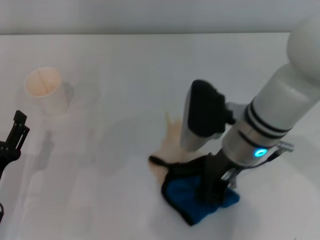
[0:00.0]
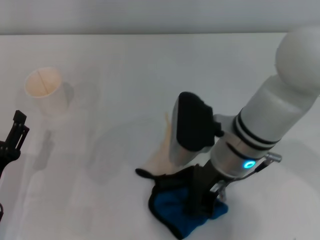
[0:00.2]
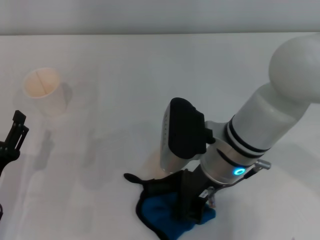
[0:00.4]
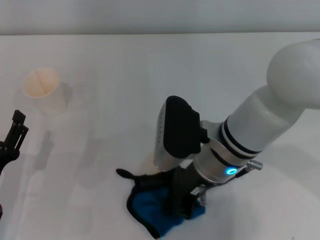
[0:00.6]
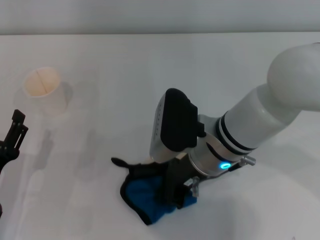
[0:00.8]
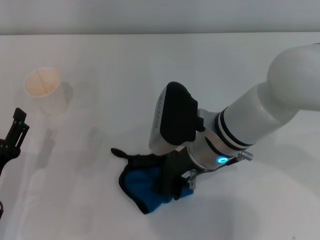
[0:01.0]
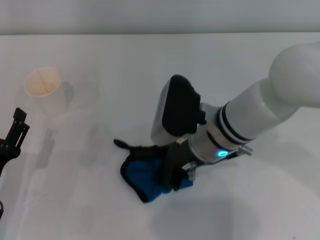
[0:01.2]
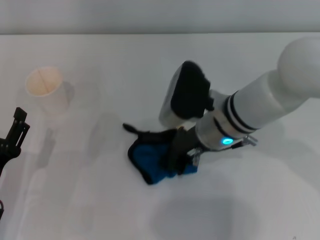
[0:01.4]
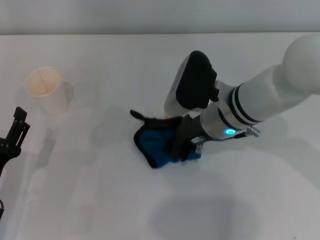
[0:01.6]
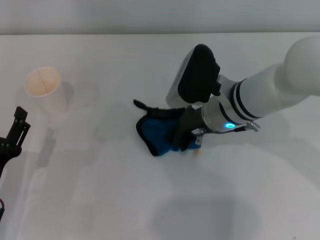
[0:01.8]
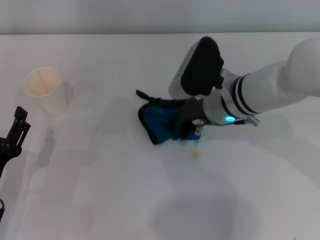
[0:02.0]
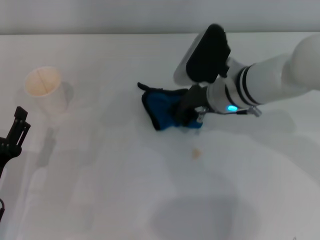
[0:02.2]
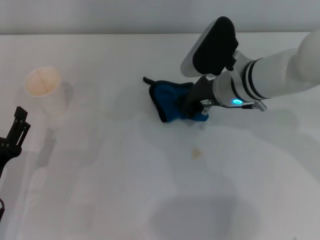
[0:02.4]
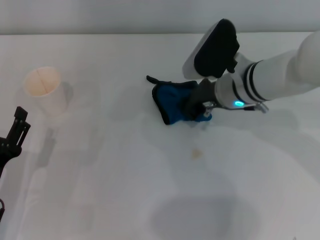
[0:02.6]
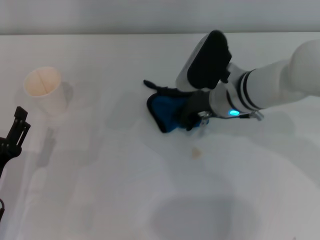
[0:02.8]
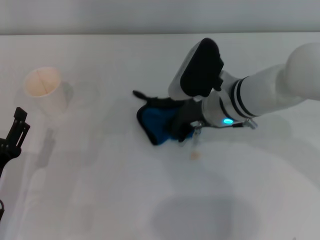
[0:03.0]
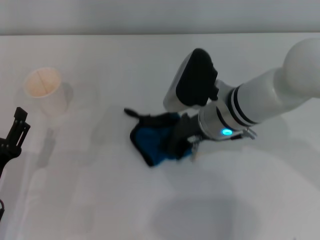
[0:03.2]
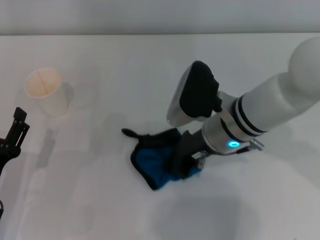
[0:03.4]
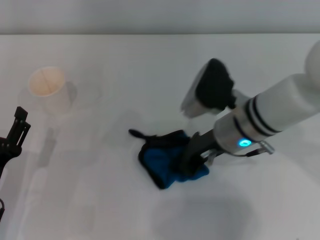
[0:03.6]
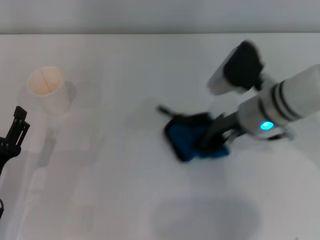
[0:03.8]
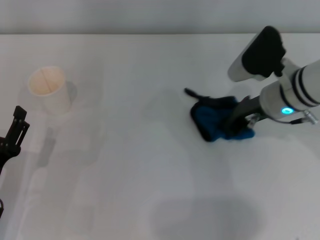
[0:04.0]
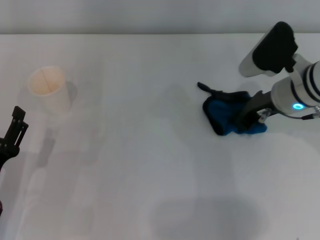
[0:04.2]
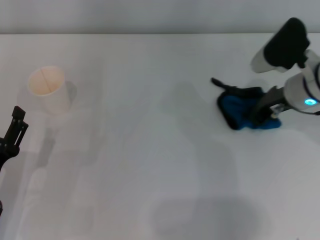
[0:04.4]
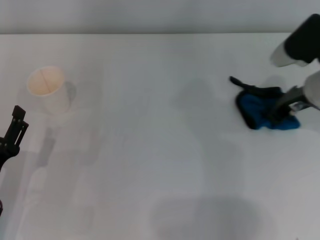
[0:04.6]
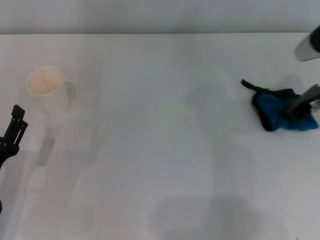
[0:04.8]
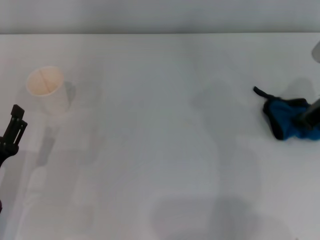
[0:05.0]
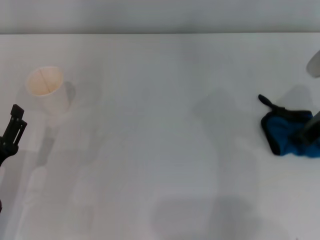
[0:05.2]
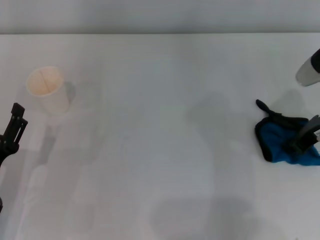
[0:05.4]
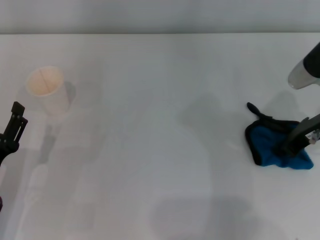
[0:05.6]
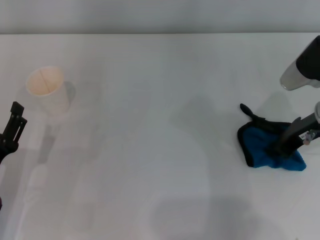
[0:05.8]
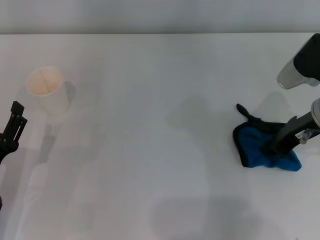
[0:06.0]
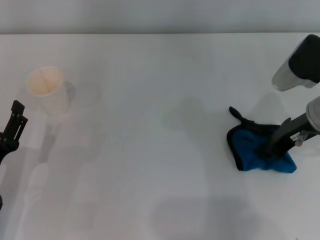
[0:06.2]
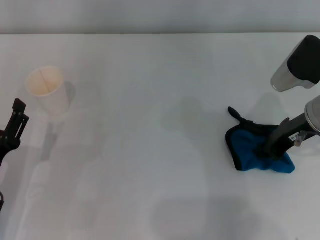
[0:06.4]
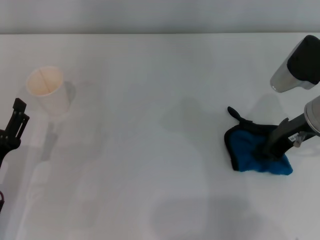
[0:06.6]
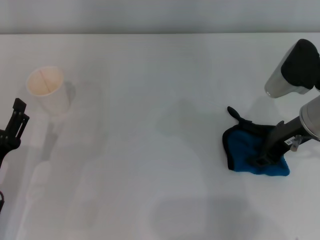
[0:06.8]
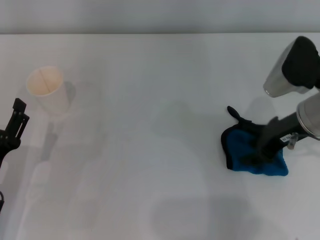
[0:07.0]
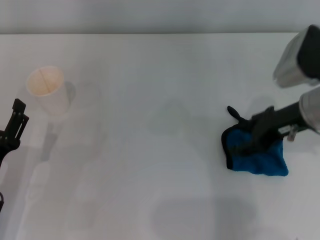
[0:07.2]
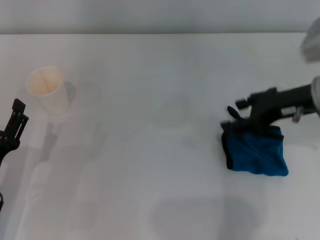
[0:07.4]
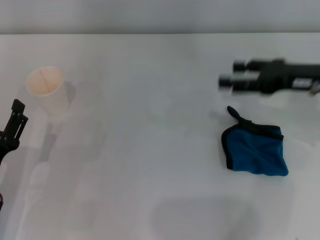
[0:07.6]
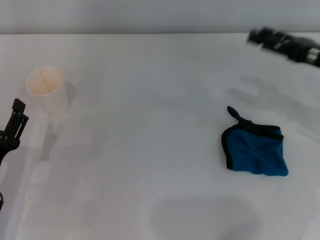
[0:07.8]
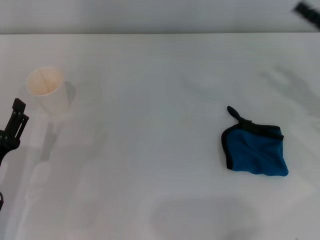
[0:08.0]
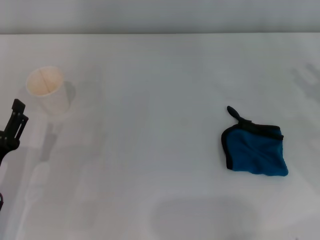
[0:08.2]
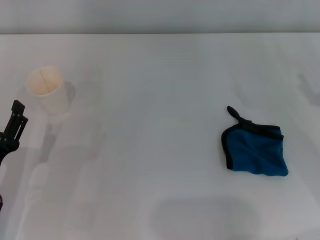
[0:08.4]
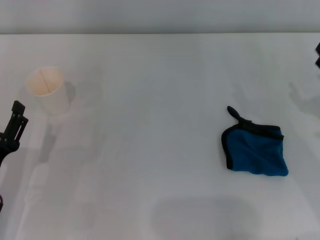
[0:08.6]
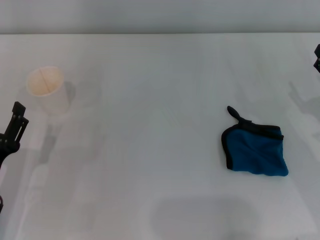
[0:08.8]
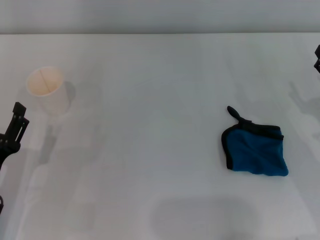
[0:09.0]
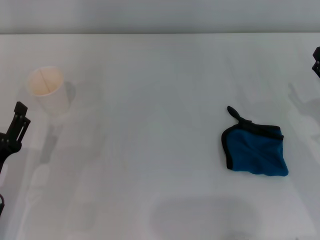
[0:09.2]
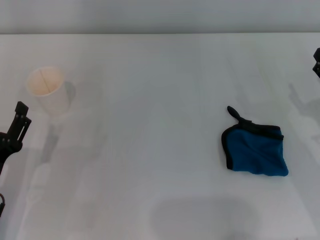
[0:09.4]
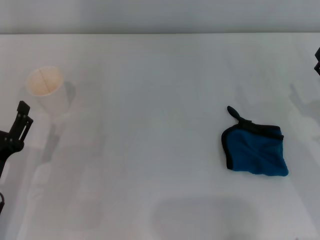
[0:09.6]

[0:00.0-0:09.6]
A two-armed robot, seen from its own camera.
Step, 0.0 to 6.0 s: Wipe the stains off the table with the right gripper.
Step, 6.2 to 7.0 s: Place the rag on the table with the right gripper.
1.6 to 3.2 s: The grippers make only small movements.
3.2 to 4.8 s: The right gripper shifts roughly 20 cm to the right.
4.8 to 6.4 s: The right gripper changes place by about 5 cm.
6.4 to 8.0 s: The right gripper travels to the right by approximately 10 cm, and opens its fingers.
8.0 to 9.6 s: The right gripper heads downward and backward, covering some 10 cm.

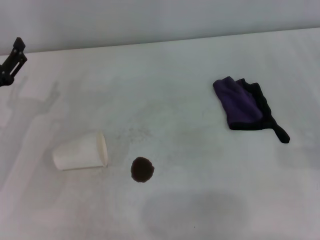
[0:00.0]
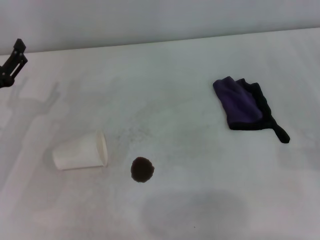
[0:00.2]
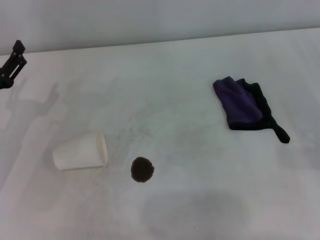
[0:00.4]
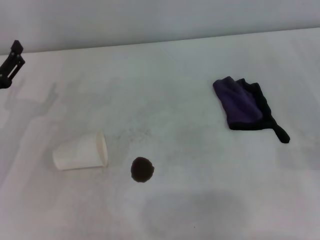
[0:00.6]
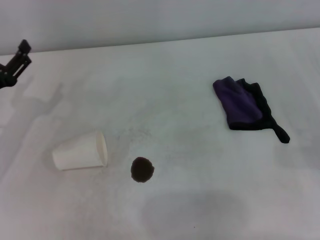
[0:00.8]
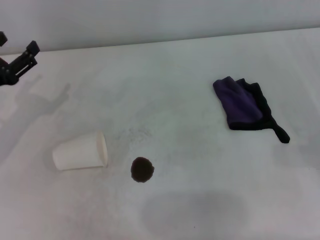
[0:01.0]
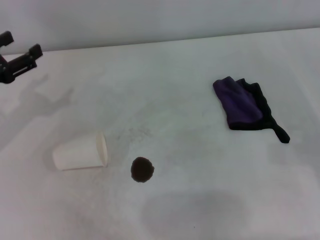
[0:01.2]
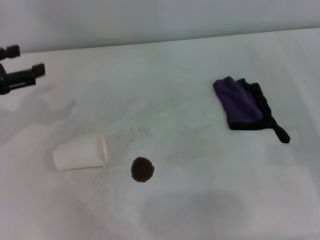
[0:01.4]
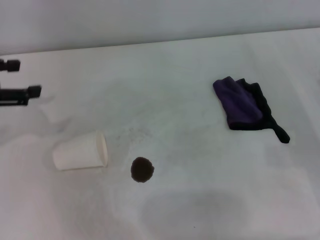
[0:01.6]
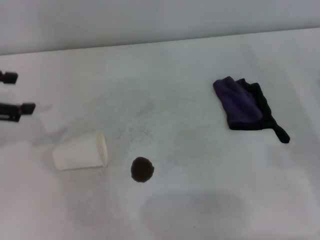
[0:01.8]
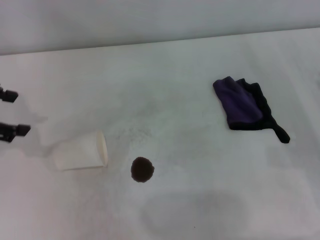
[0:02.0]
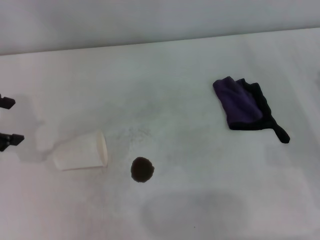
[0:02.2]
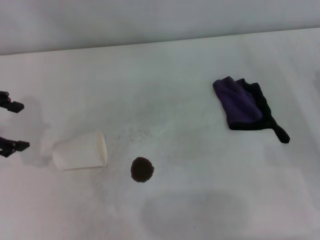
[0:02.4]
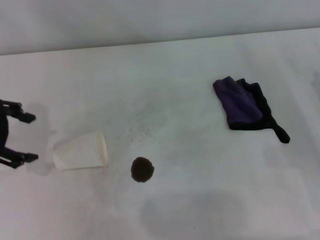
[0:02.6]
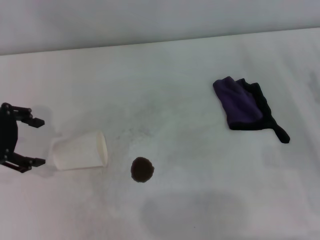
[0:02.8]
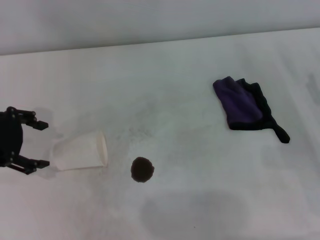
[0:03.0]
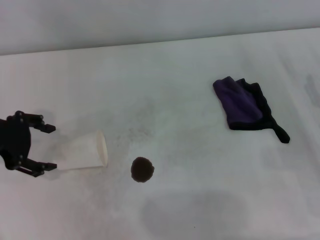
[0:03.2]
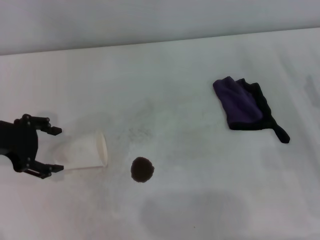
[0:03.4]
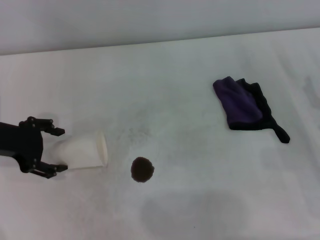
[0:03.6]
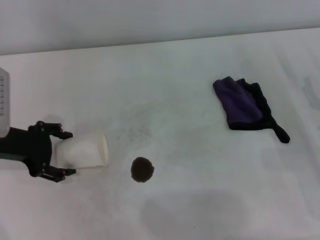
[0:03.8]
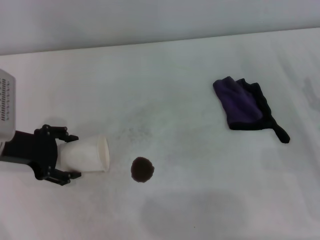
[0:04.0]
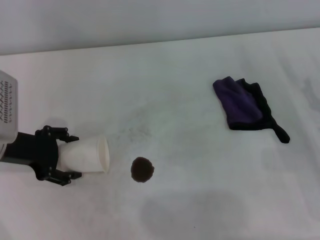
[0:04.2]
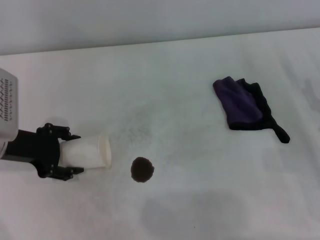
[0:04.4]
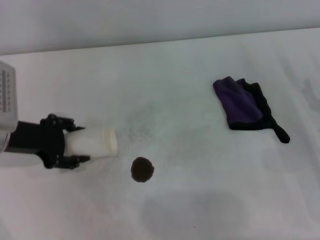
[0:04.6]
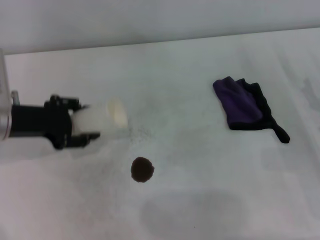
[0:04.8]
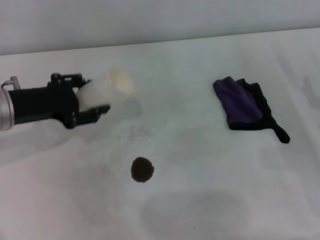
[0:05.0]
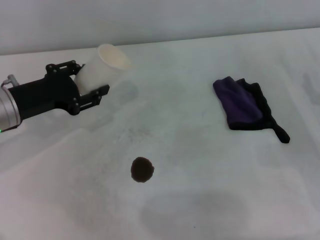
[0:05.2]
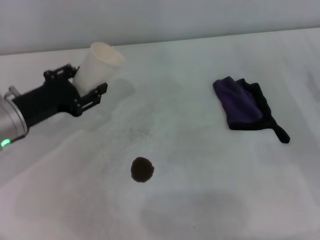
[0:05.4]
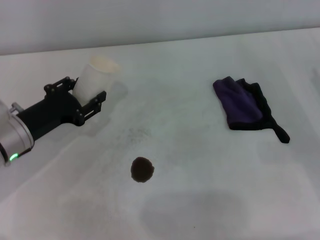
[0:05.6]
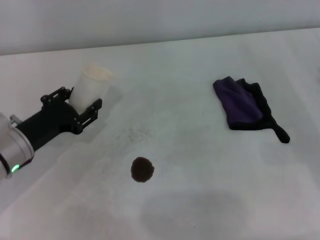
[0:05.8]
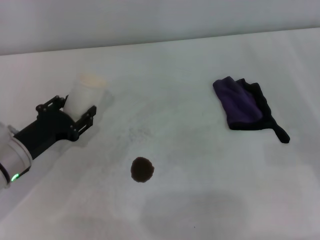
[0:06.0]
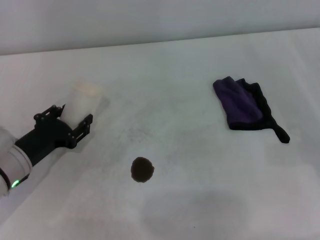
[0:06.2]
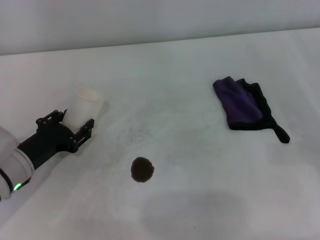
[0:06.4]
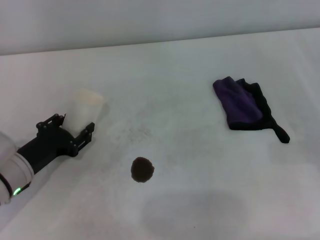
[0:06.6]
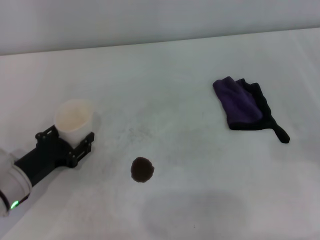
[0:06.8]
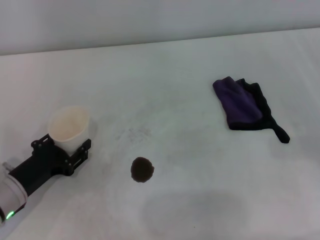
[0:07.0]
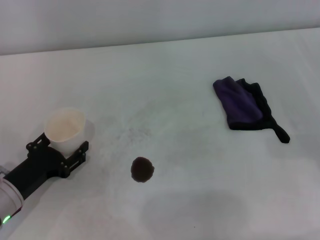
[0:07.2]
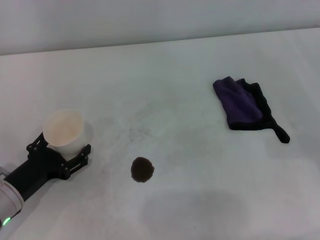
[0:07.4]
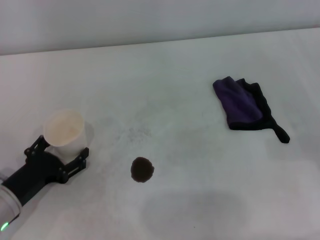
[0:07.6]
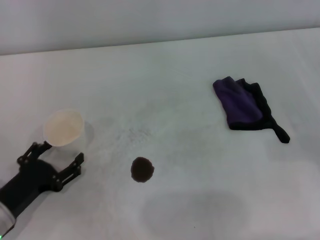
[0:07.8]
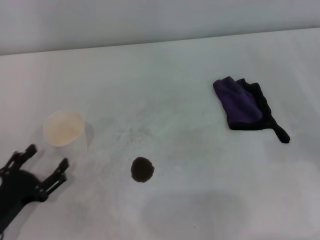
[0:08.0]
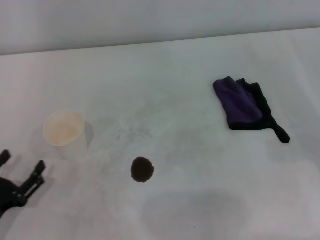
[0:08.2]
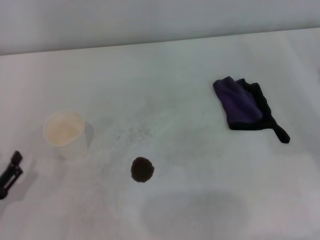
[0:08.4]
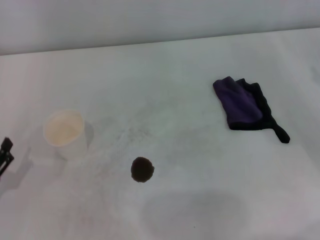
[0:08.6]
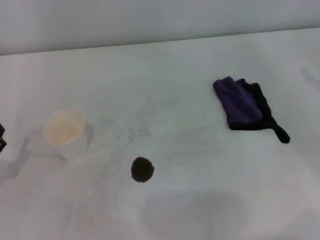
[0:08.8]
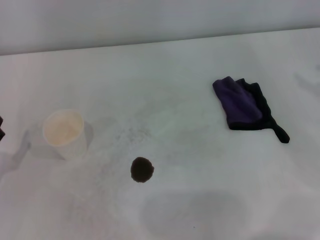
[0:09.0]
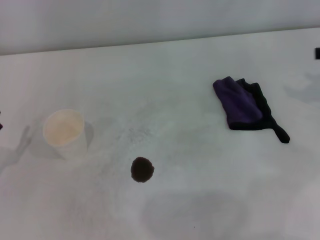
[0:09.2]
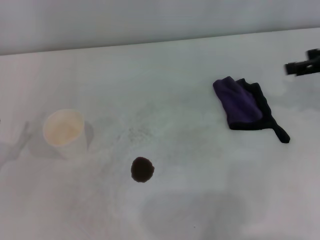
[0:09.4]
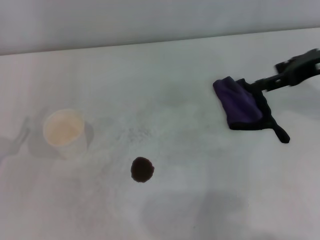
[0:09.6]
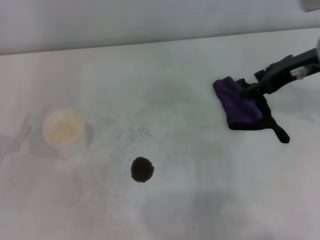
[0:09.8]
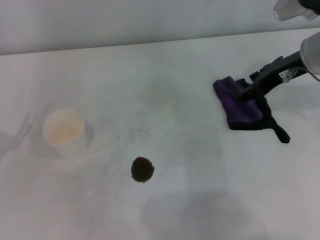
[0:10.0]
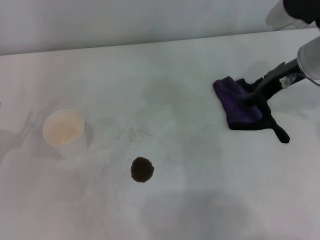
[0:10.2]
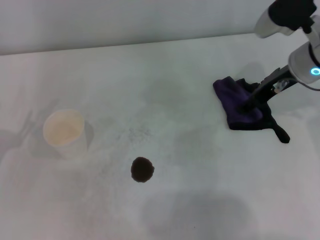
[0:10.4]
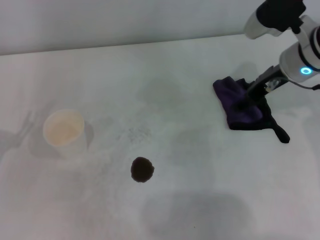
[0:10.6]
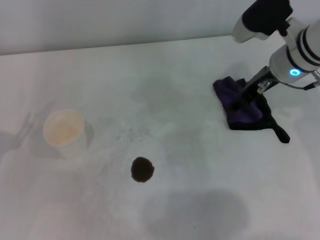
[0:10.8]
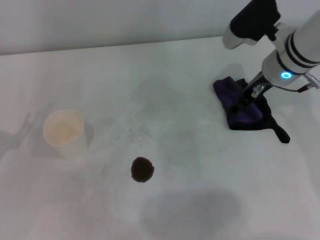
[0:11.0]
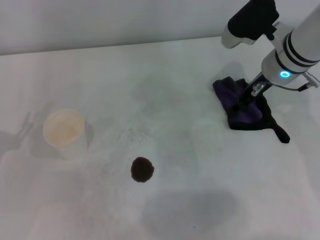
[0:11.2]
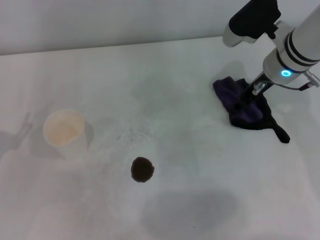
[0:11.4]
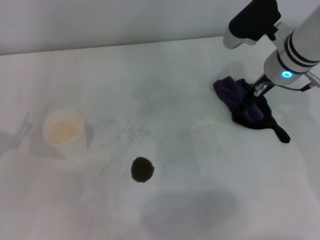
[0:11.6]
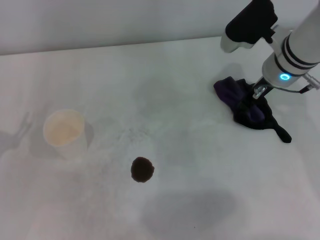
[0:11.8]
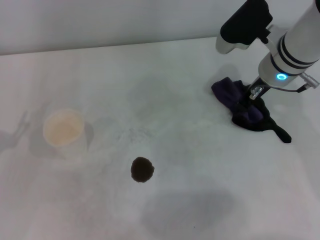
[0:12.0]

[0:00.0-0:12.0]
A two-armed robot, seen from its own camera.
Step, 0.0 to 4.2 s: Grasp the paper cup with the left gripper.
Step, 4.4 to 7.2 s: Stand the paper cup upright with the left gripper.
Step, 7.4 to 11.8 s: Grasp the rag with the right gripper.
0.0 to 1.6 s: The left gripper moves upward, roughly 10 cm.
3.0 to 4.4 s: The left gripper moves downward, about 5 cm.
4.4 to 6.0 s: The left gripper shifts about 10 cm downward, and closes.
6.0 to 7.6 s: The left gripper goes approximately 5 cm backward, and opens up.
7.6 to 9.0 s: The left gripper heads to the left, covering some 5 cm.
9.0 to 10.4 s: The right gripper moves to the left and forward, approximately 20 cm.
10.4 to 12.0 s: The right gripper changes place by roughly 5 cm, and closes its fingers.

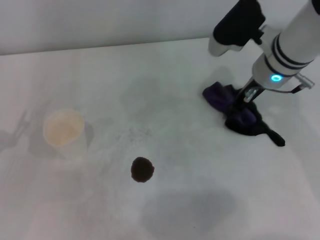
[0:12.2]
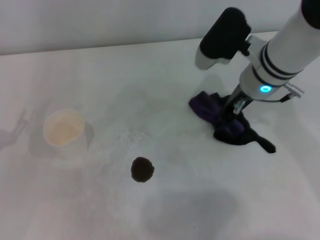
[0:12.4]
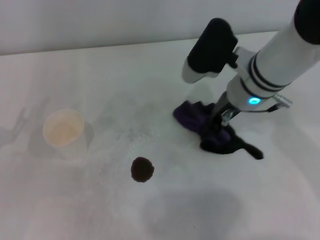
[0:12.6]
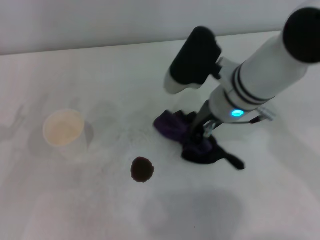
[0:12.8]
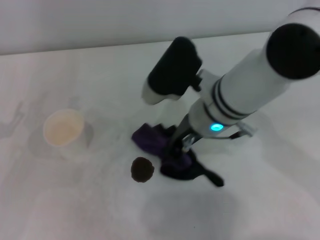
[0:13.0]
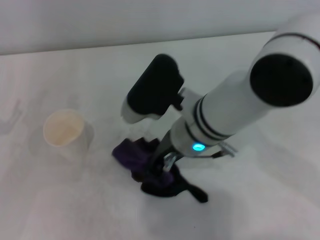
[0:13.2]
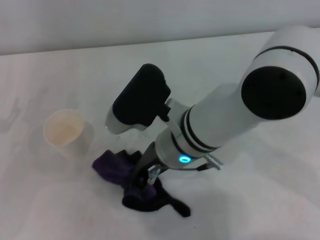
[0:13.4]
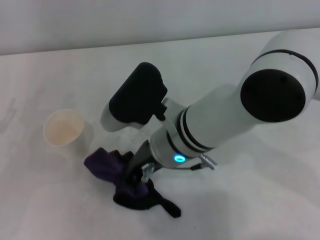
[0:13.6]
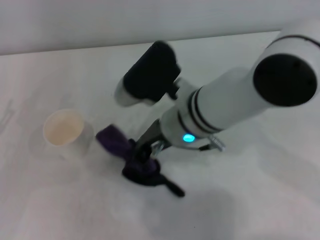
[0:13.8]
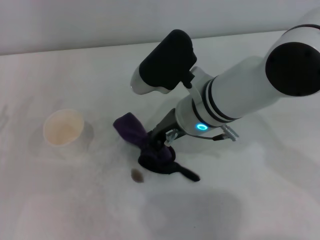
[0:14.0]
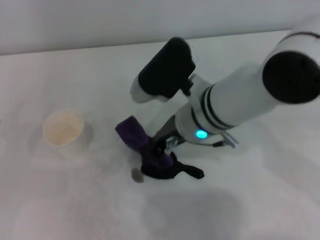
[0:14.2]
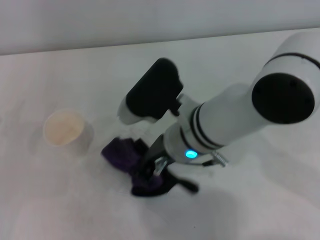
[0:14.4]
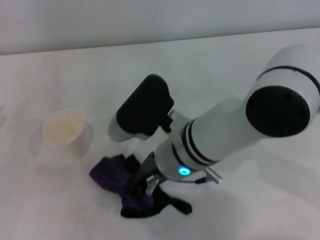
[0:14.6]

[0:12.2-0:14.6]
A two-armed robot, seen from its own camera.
12.2 to 13.4 s: The right gripper travels to the left and backward by about 20 cm.
13.4 to 14.6 s: There are only small adjustments of the grippers.
